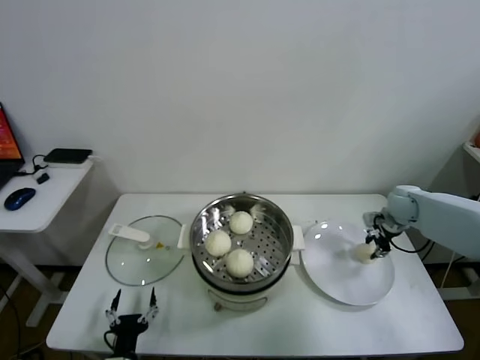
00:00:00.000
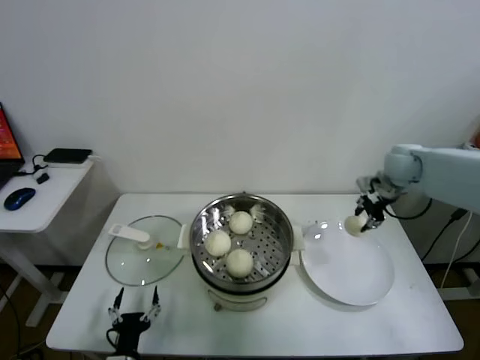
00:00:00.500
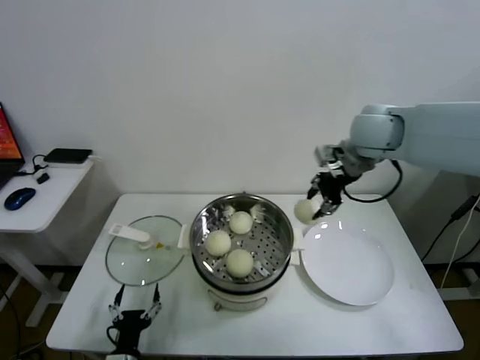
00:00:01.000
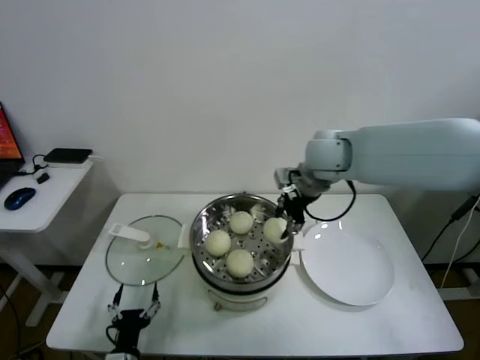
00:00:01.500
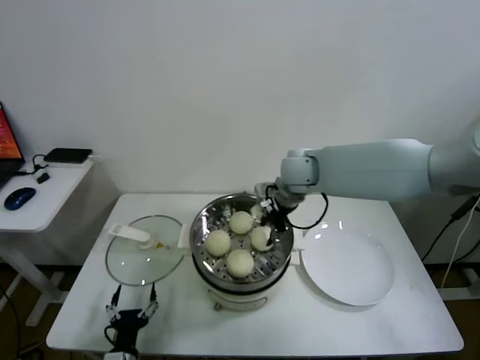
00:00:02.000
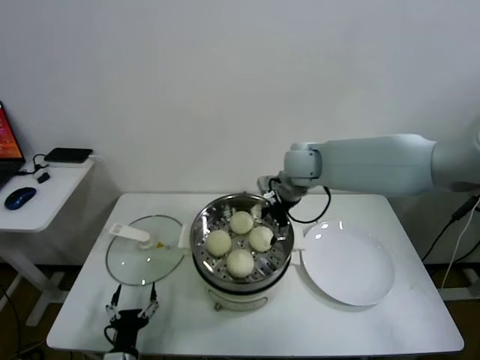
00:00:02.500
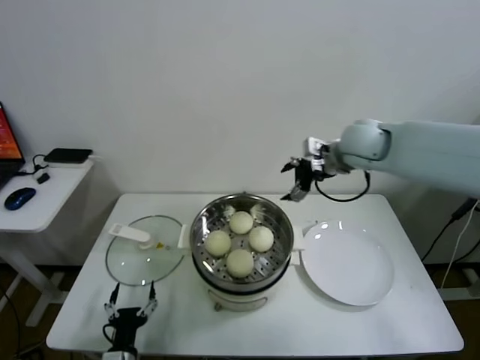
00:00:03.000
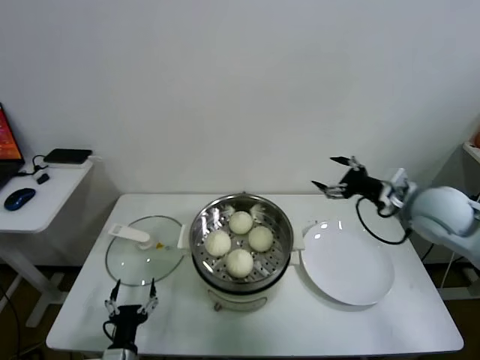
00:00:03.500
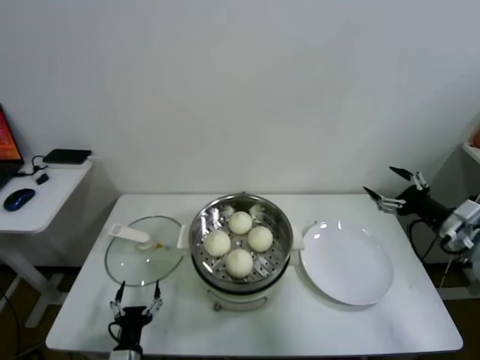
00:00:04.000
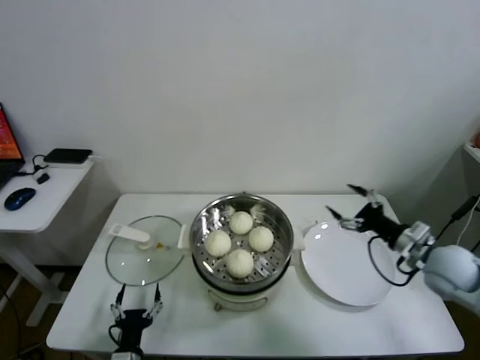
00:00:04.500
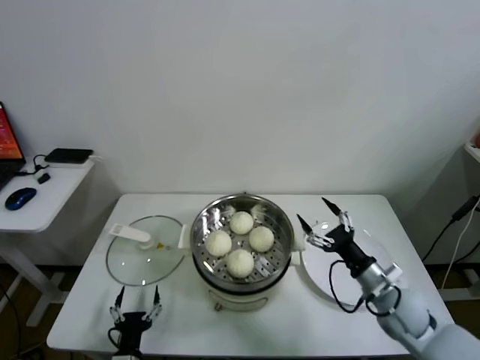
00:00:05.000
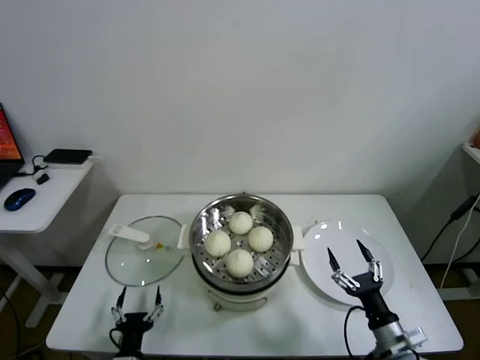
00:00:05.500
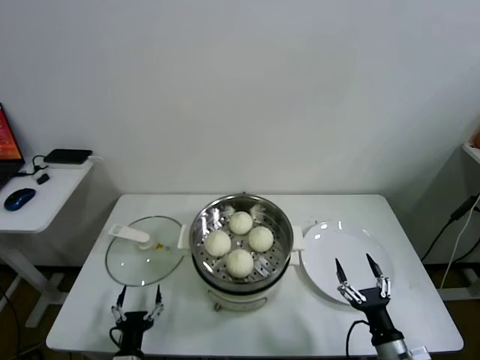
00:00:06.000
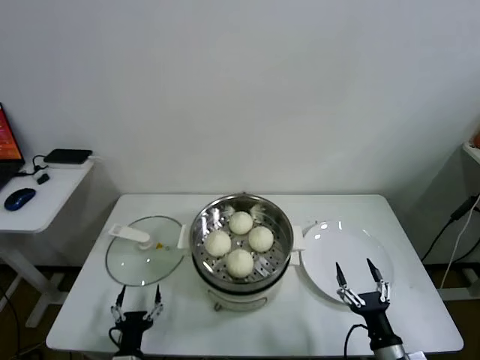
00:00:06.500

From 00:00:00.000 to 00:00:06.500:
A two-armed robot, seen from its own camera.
Task of the whole recording: take steamed baozi put them in steamer.
Step, from 00:00:00.500 to 00:00:02.000: Place the baozi on the steamer with right gripper.
From 00:00:00.000 to 00:00:02.000: The right gripper shifts roughly 30 cm to the left and upward.
From 00:00:02.000 to 00:00:04.500: The right gripper shifts some 35 cm to the right and backward, and opens up.
From 00:00:04.500 to 00:00:06.500: The right gripper is displaced downward, backward and to the left by about 30 cm.
